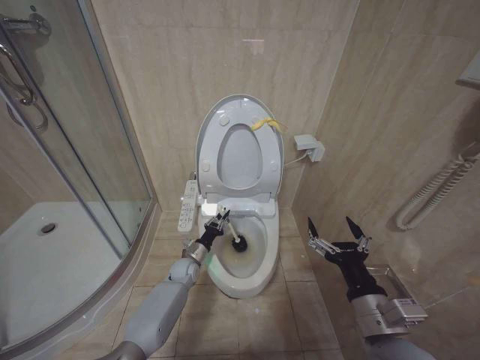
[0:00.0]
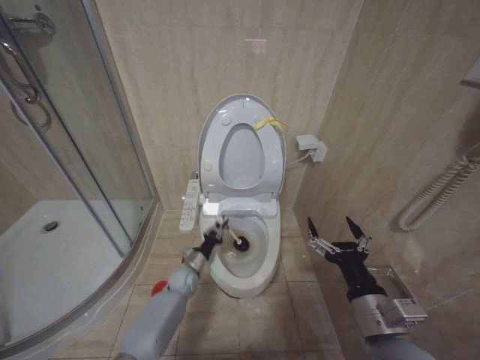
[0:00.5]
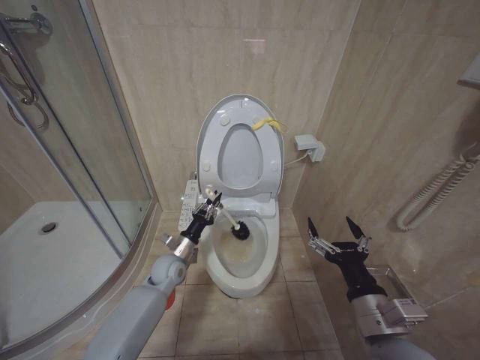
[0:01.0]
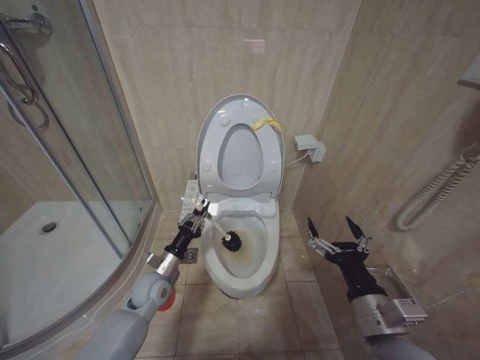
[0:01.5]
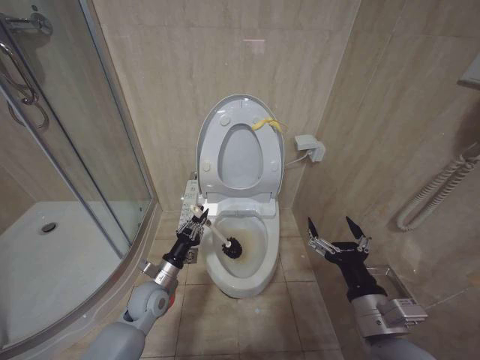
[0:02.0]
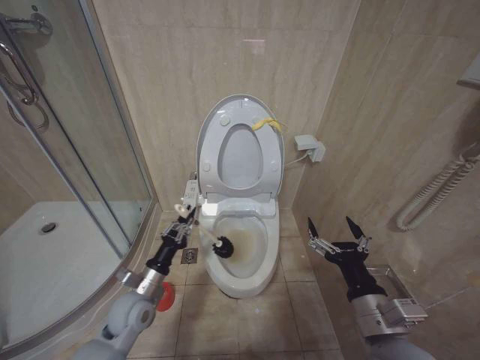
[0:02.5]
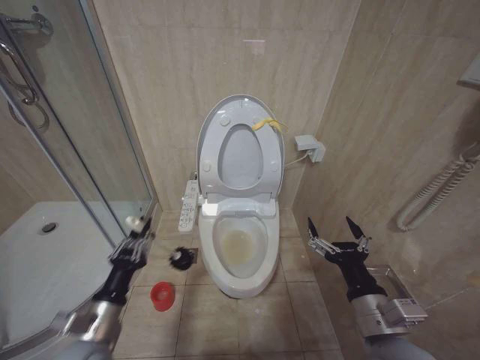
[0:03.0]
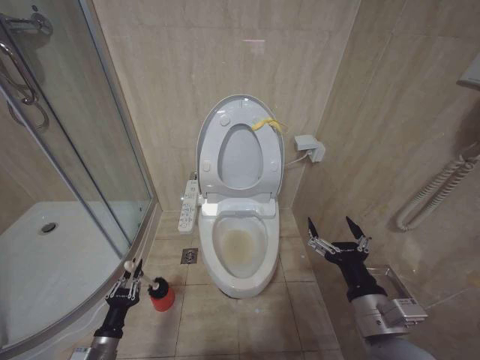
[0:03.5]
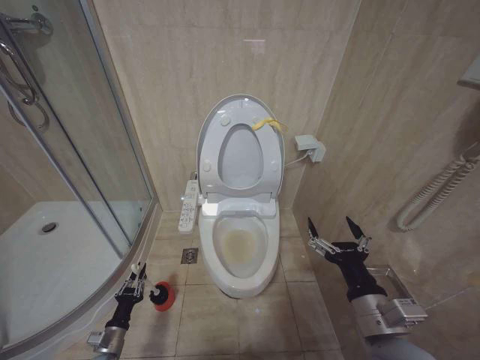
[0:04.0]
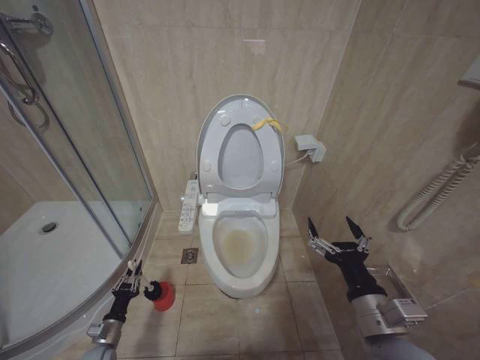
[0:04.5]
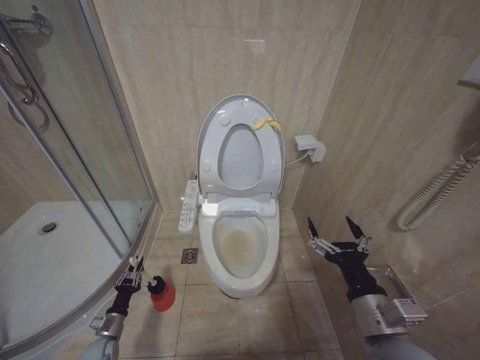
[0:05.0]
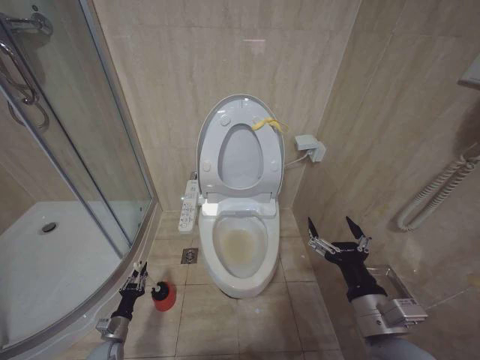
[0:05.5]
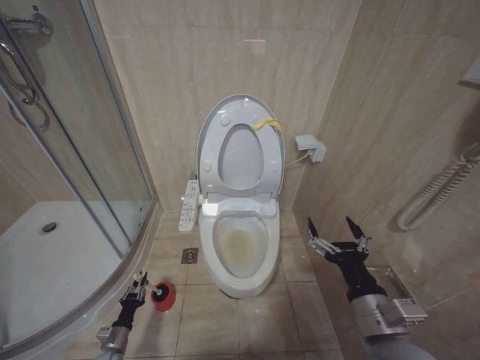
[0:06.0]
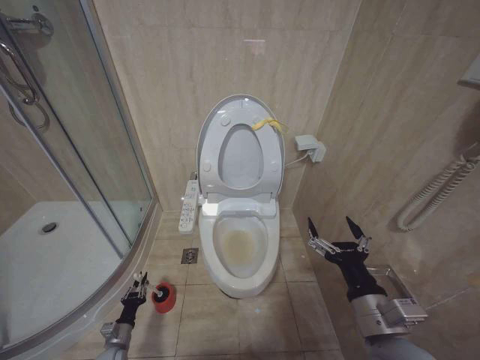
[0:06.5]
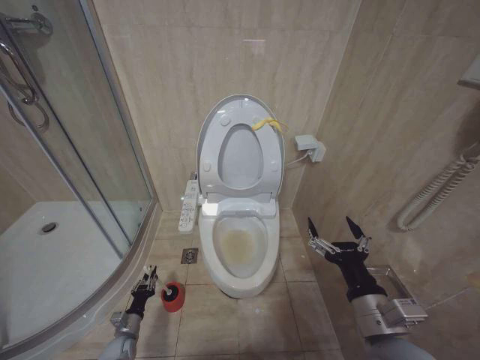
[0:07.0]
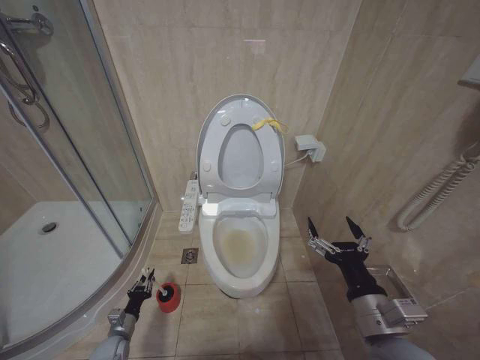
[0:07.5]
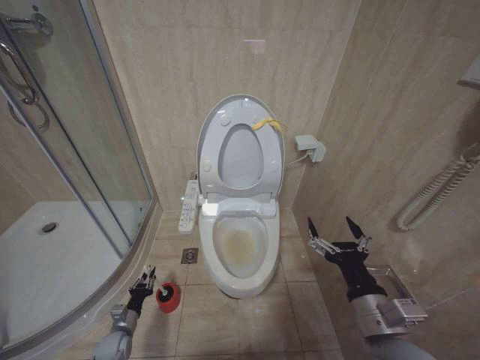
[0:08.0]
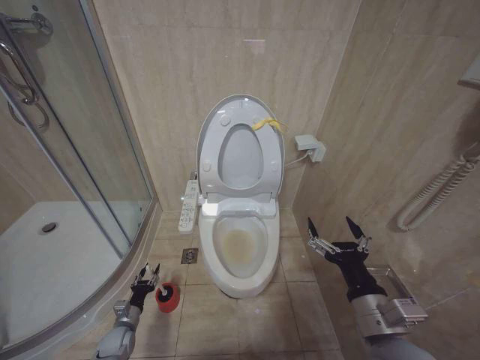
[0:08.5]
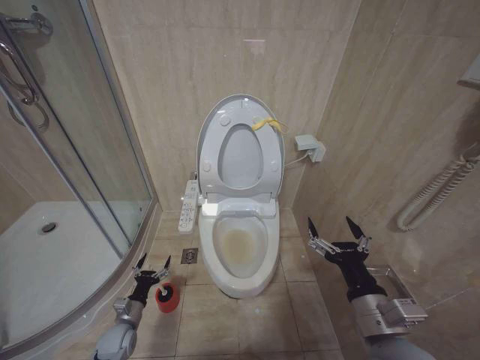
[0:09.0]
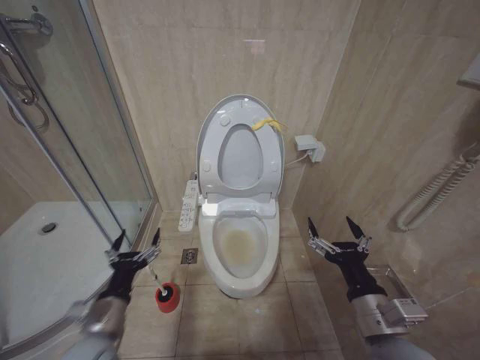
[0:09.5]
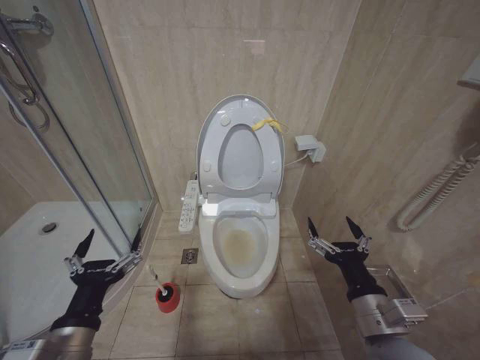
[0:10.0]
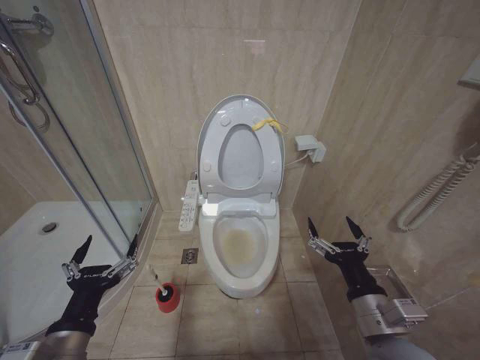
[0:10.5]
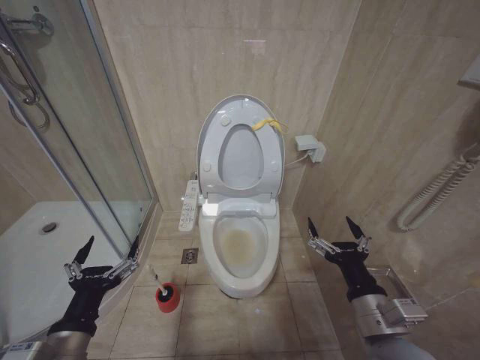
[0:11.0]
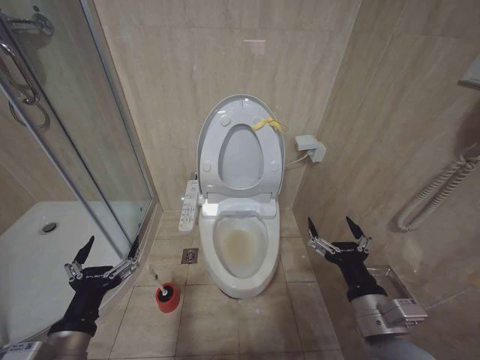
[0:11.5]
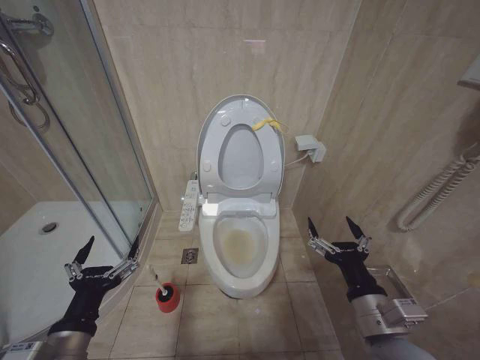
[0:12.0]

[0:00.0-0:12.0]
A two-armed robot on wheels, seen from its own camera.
Task of the whole recording: Open the toilet lid, clean the toilet bowl with a toilet brush, close the toilet lid, and flush.
0:00.0 to 0:02.0: The left gripper heads backward, upward and to the left, covering some 15 cm.
0:02.0 to 0:04.0: The left gripper is displaced downward, to the left and backward by some 25 cm.
0:04.0 to 0:06.0: The left gripper goes about 10 cm downward.
0:06.0 to 0:08.0: The left gripper ends up approximately 5 cm from where it was.
0:08.0 to 0:10.0: The left gripper shifts roughly 40 cm upward and backward, and opens.
0:10.0 to 0:12.0: The grippers stay close to where they were, moving slightly.

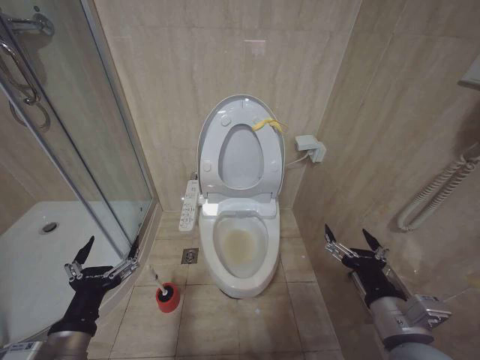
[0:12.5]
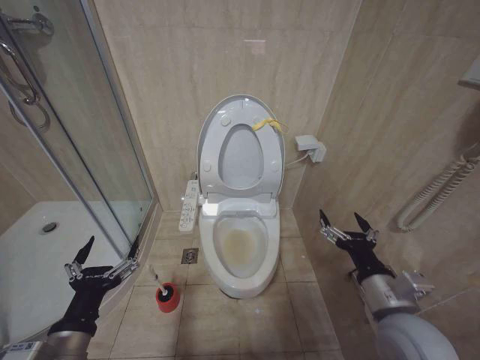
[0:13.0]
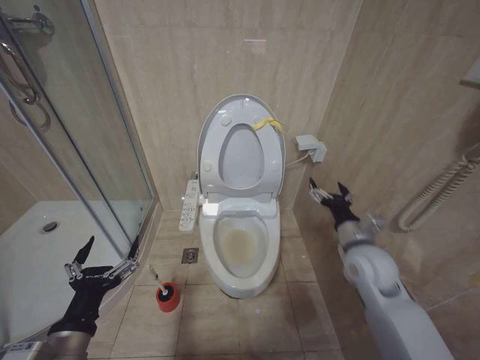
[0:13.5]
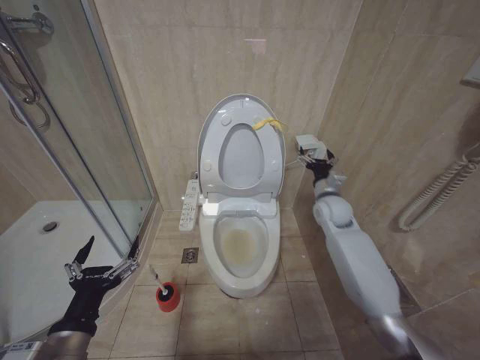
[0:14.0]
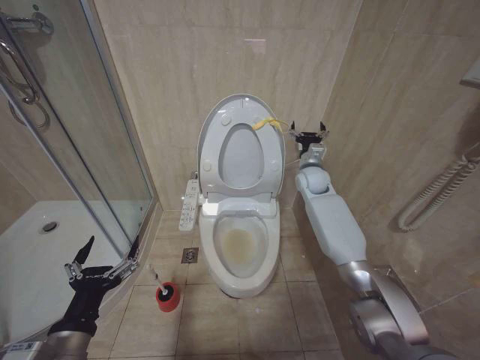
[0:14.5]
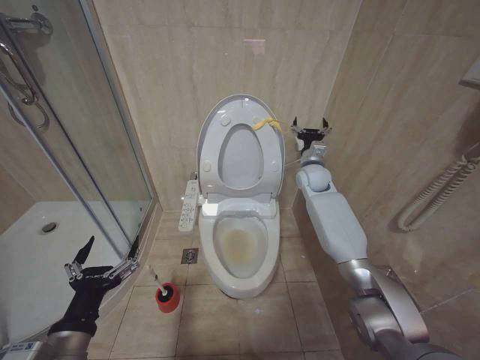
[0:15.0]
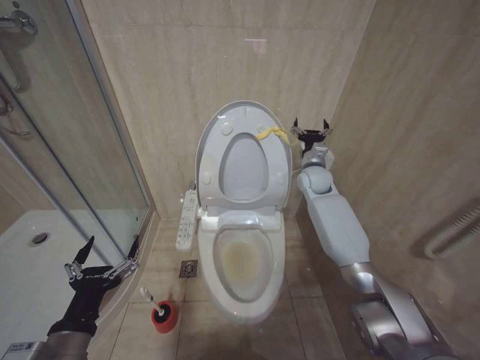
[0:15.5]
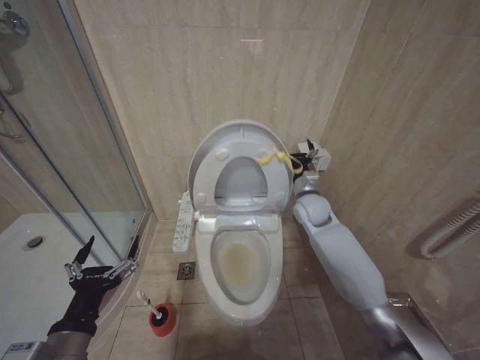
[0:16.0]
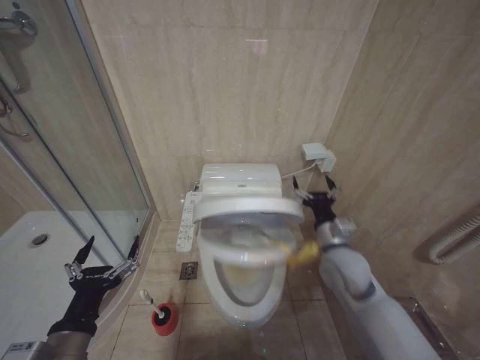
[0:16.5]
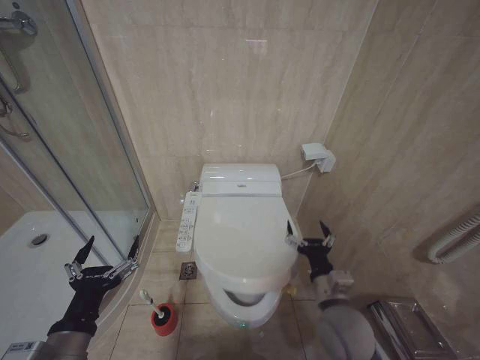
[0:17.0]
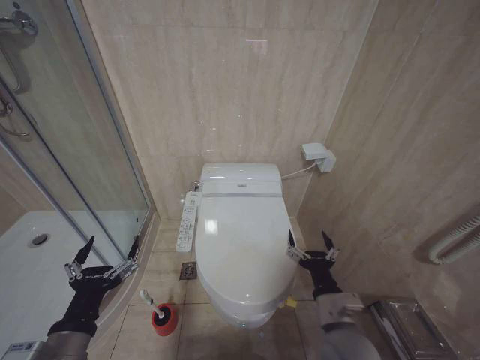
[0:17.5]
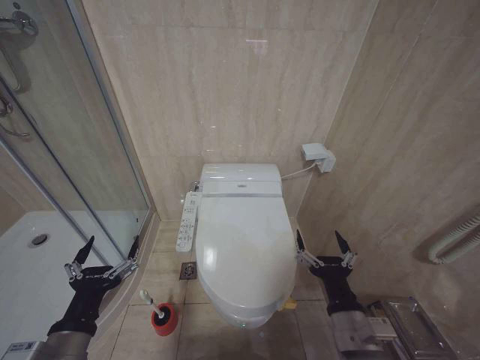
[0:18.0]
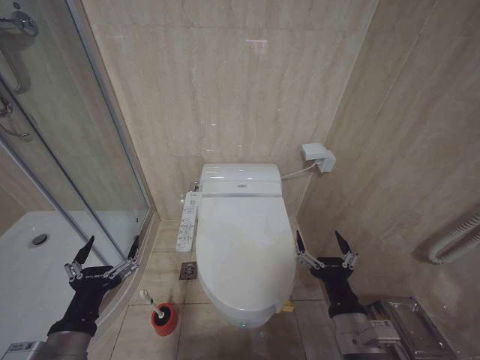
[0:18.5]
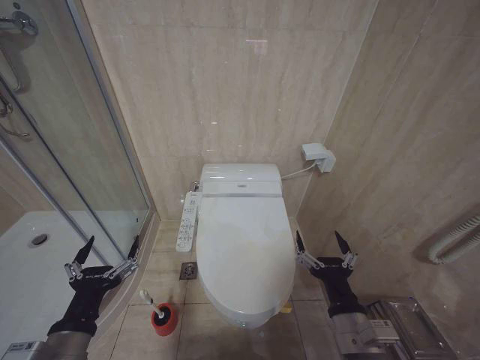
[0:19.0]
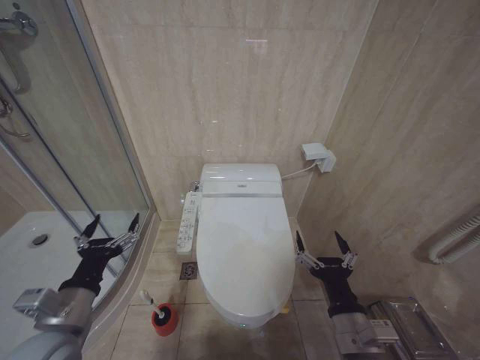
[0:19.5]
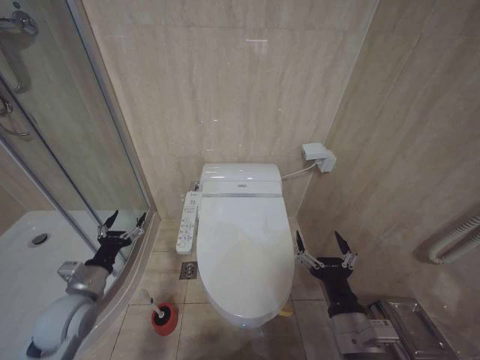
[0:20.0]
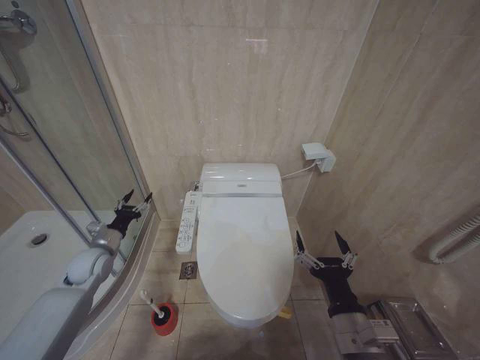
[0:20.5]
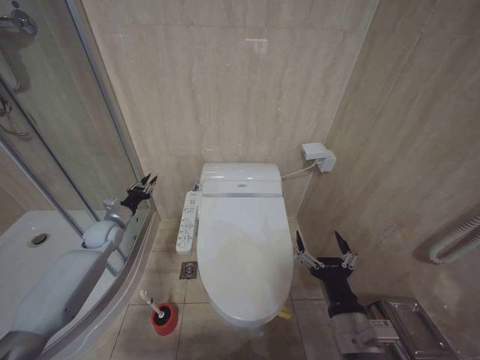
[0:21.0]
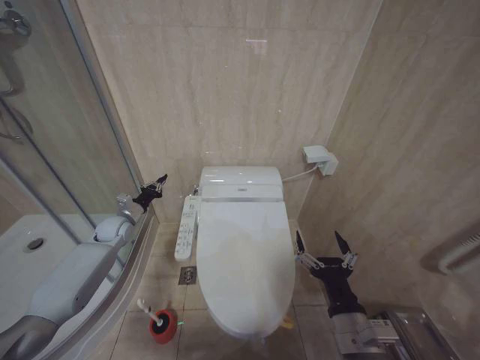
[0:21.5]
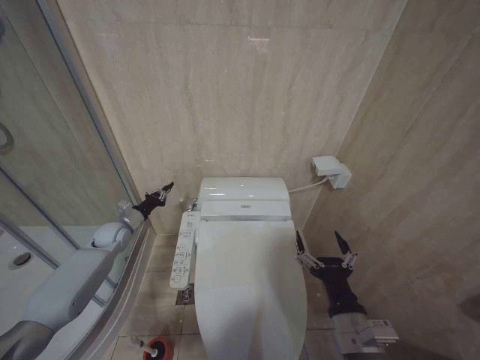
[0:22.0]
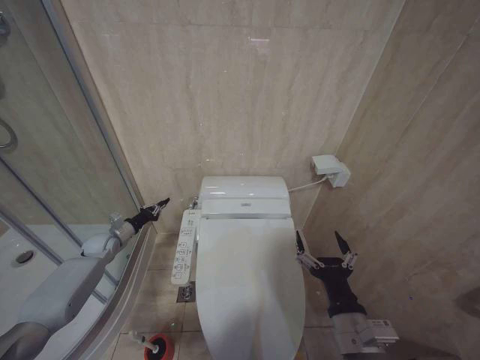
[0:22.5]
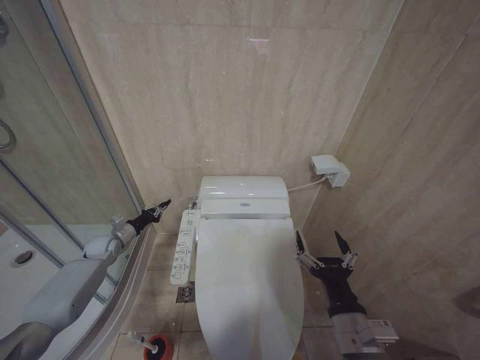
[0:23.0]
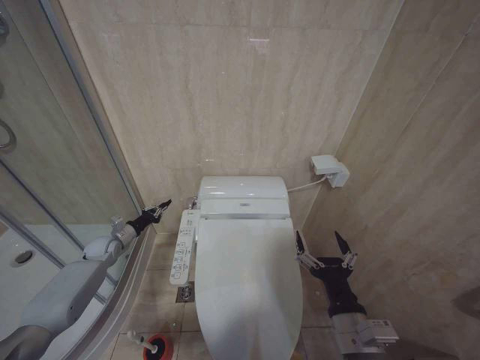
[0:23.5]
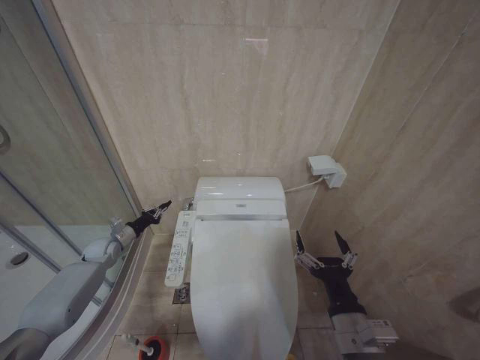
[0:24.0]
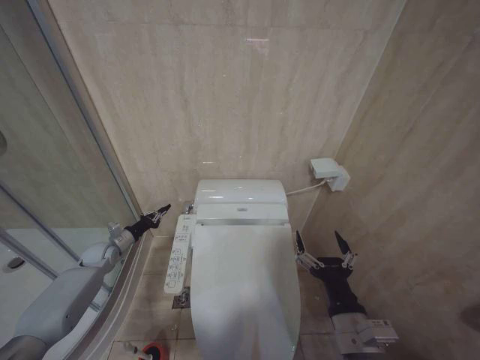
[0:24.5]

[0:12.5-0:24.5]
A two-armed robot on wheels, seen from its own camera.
Task of the whole recording: Open the toilet lid, clean the toilet bowl with a toilet brush, close the toilet lid, and flush.
0:12.5 to 0:14.5: The right gripper heads forward, covering approximately 40 cm.
0:14.5 to 0:16.5: The right gripper is displaced backward by approximately 25 cm.
0:16.5 to 0:18.5: The right gripper shifts some 20 cm backward.
0:18.5 to 0:20.5: The left gripper shifts some 30 cm forward and to the left.
0:20.5 to 0:22.5: The left gripper is displaced forward by roughly 10 cm, and closes its fingers.
0:22.5 to 0:24.5: There are only small adjustments of the grippers.

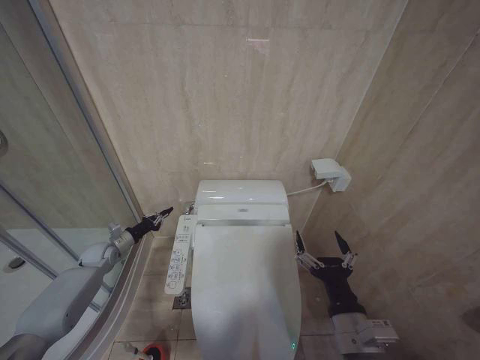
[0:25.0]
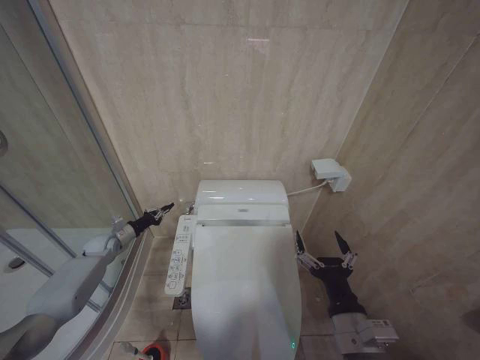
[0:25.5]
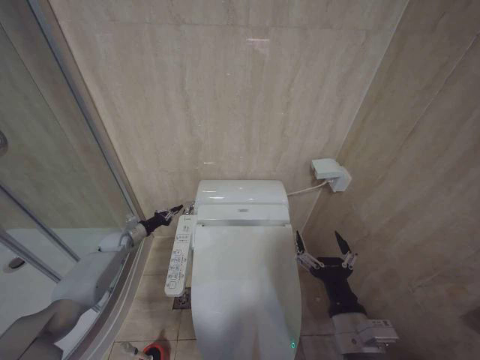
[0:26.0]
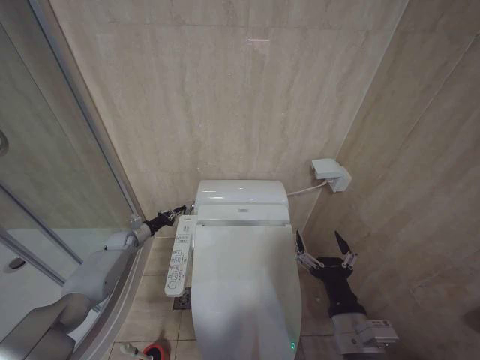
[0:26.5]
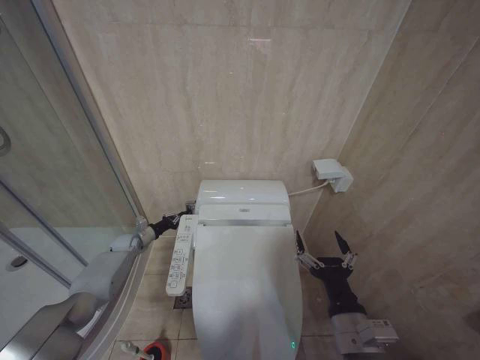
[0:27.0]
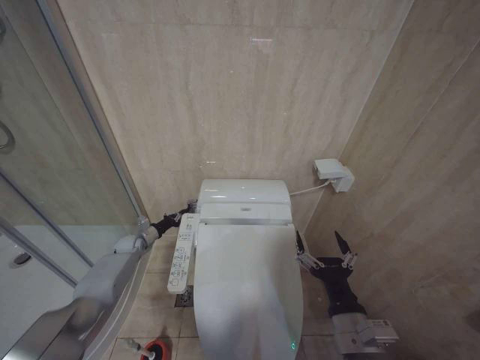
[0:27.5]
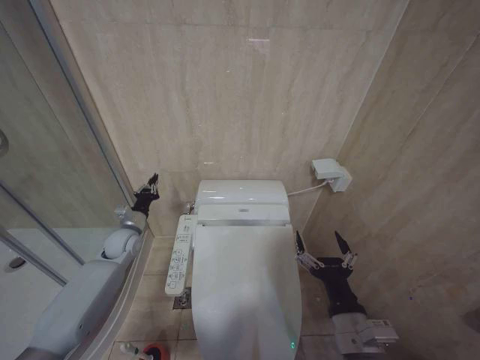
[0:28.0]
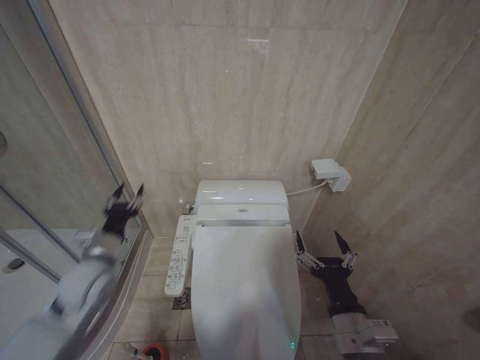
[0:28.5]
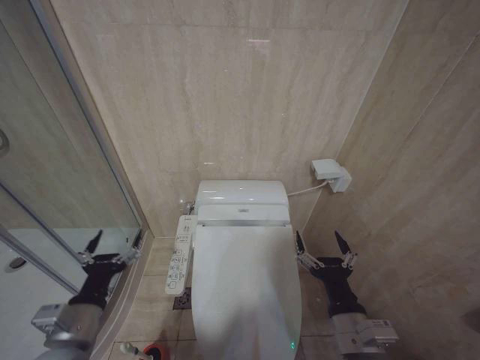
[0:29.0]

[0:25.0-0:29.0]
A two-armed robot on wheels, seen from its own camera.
Task of the whole recording: Open the toilet lid, clean the toilet bowl with a toilet brush, close the toilet lid, and flush.
0:25.0 to 0:27.0: The left gripper moves forward, about 5 cm.
0:27.0 to 0:29.0: The left gripper heads backward and upward, covering some 40 cm, and opens up.
